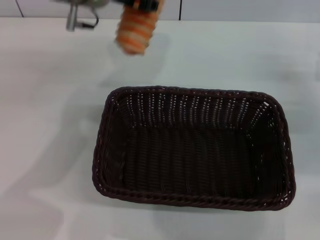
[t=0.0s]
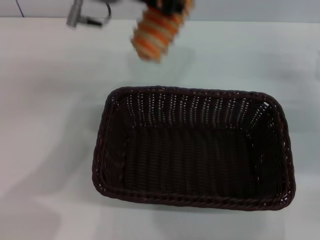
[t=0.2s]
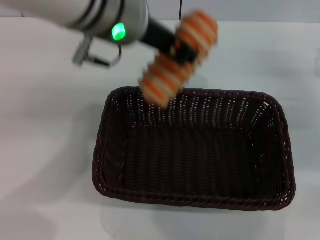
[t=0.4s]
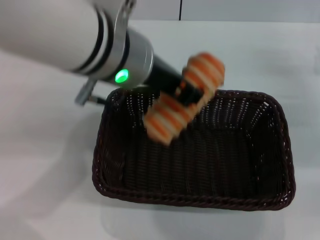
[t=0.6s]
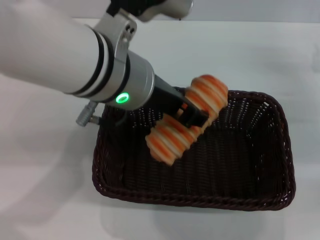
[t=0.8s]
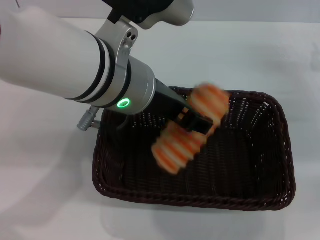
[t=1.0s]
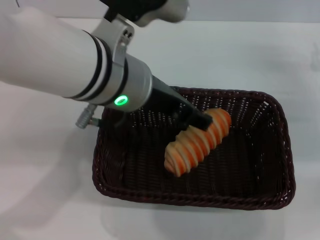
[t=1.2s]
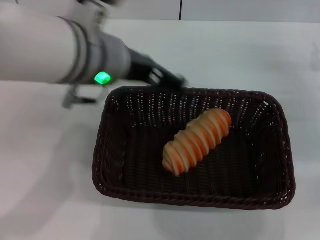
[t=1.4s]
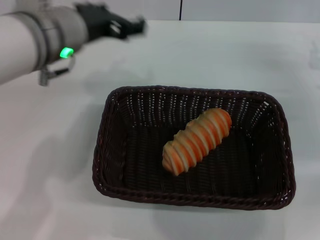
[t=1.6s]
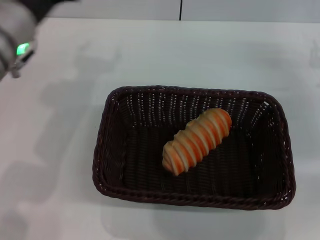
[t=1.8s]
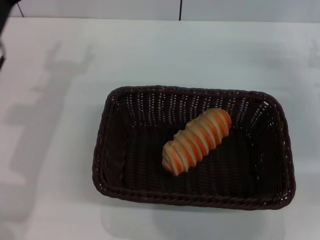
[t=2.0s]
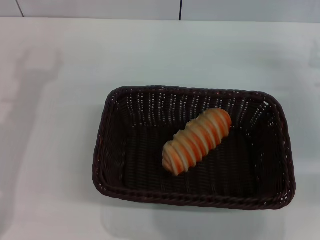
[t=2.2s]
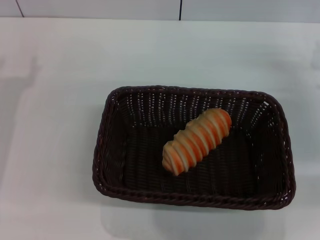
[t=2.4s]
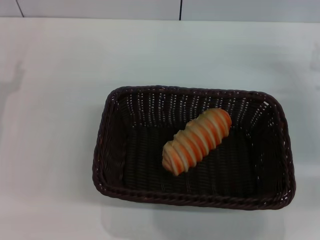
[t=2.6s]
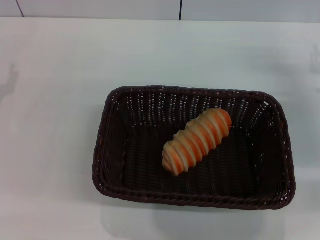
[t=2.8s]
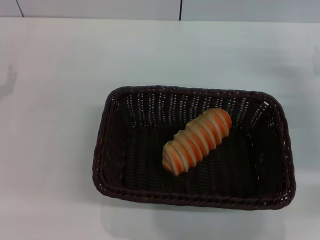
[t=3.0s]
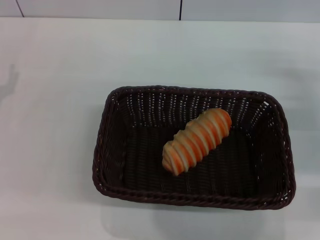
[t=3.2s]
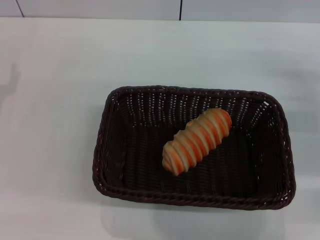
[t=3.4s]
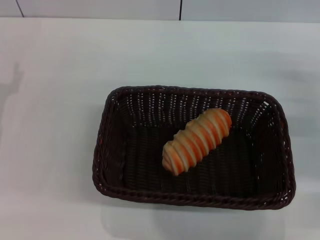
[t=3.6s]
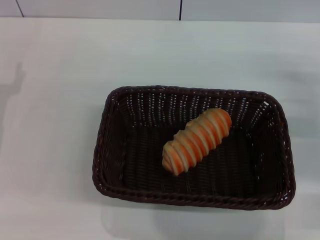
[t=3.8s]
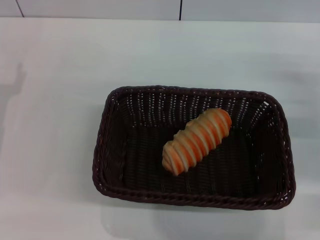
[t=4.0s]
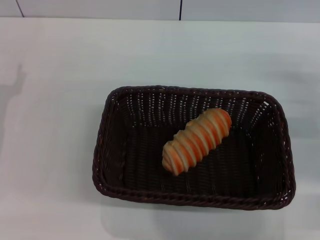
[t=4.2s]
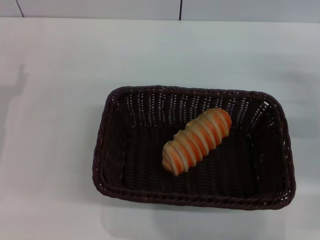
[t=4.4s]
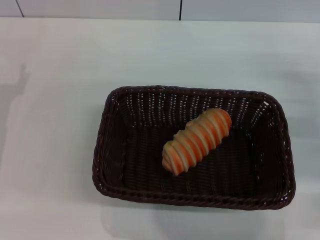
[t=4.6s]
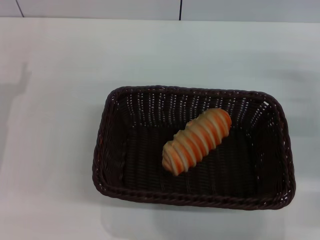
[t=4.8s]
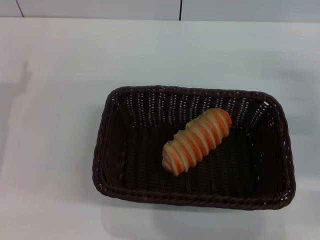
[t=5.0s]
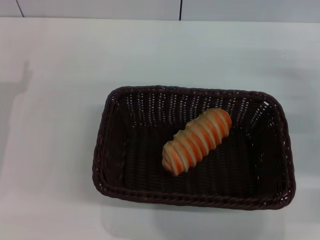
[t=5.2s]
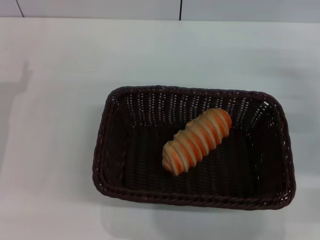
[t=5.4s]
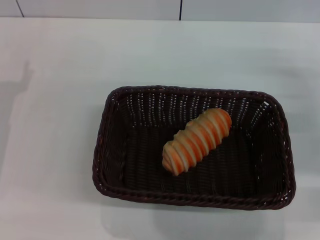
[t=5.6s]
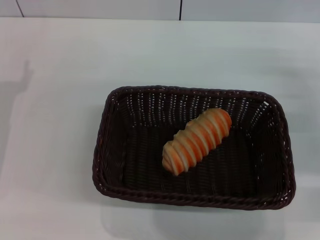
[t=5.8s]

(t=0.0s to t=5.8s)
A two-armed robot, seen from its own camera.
Step, t=0.0s - t=1.4s: Place the long bread into the dark basket with the left gripper.
t=0.0s - t=1.4s: The left gripper travels backward by about 10 cm, and opens its fingers.
t=1.4s - t=2.8s: The left gripper heads to the left and downward, covering roughly 30 cm.
t=4.4s - t=5.8s: Both grippers stay put.
